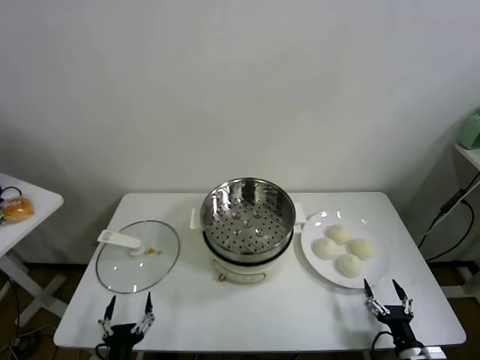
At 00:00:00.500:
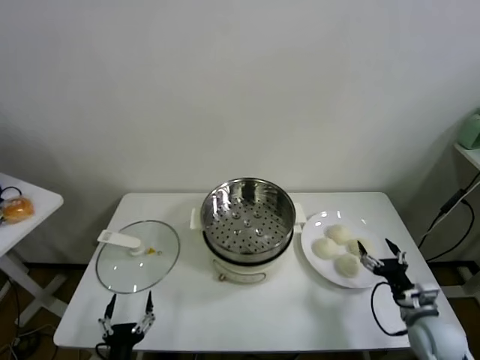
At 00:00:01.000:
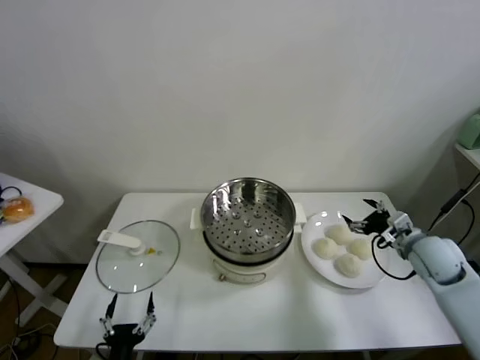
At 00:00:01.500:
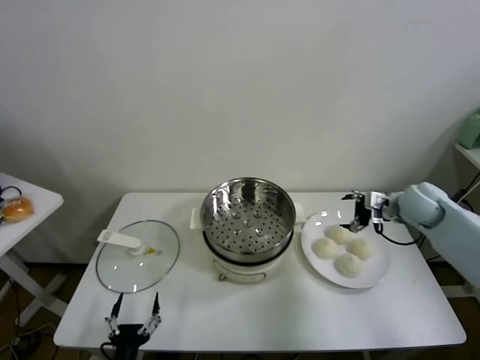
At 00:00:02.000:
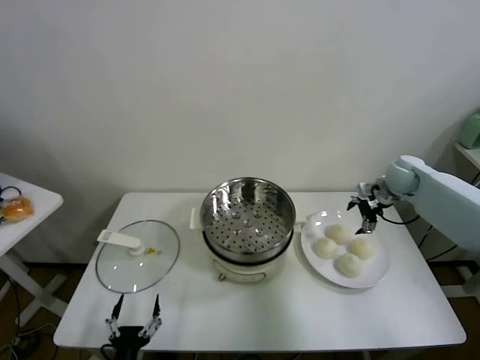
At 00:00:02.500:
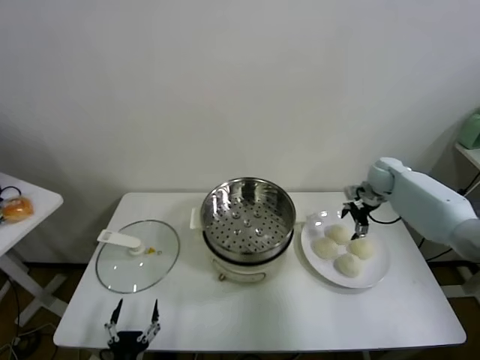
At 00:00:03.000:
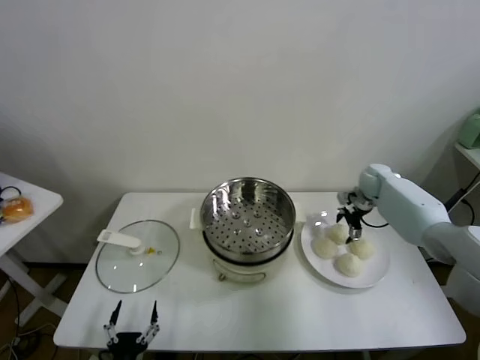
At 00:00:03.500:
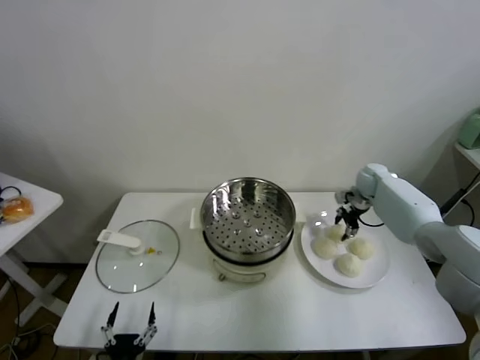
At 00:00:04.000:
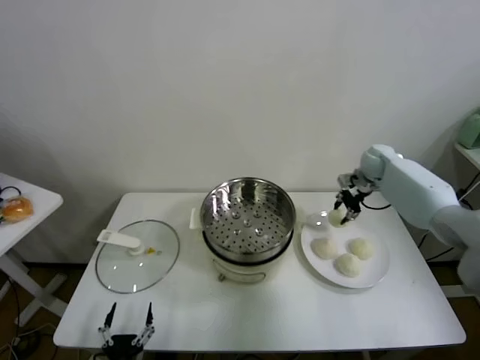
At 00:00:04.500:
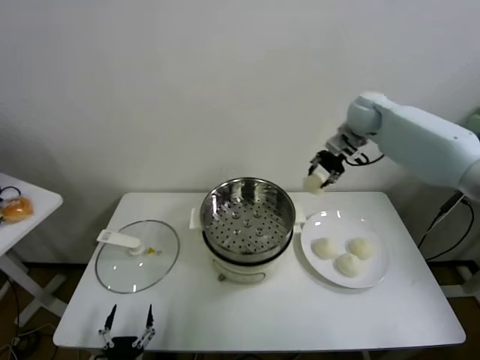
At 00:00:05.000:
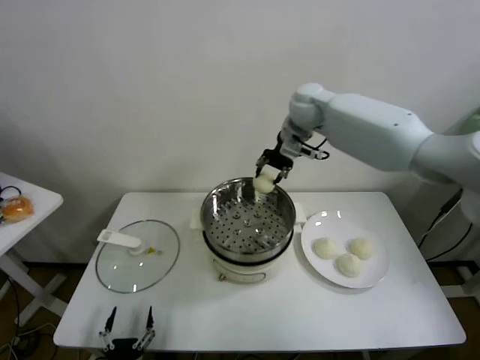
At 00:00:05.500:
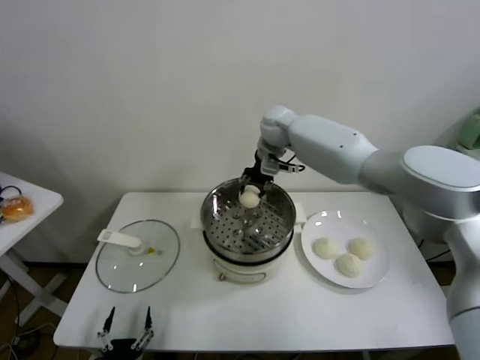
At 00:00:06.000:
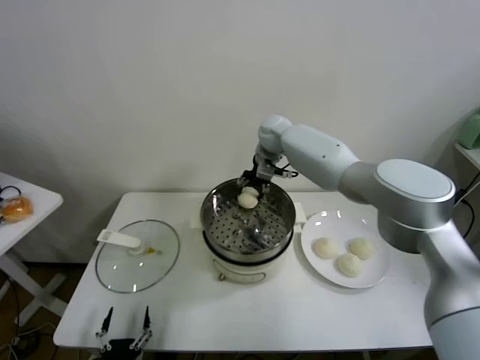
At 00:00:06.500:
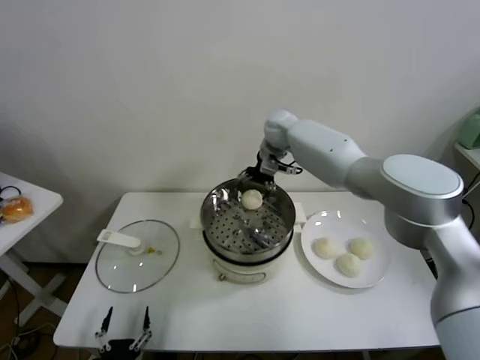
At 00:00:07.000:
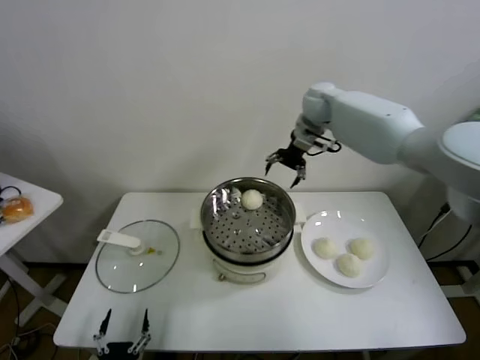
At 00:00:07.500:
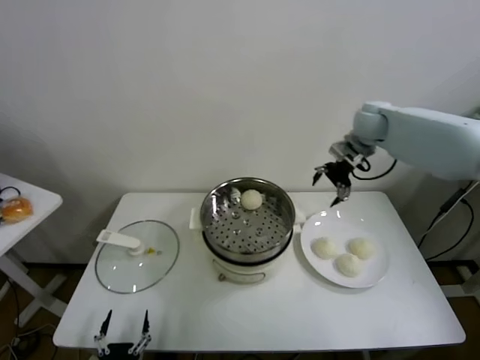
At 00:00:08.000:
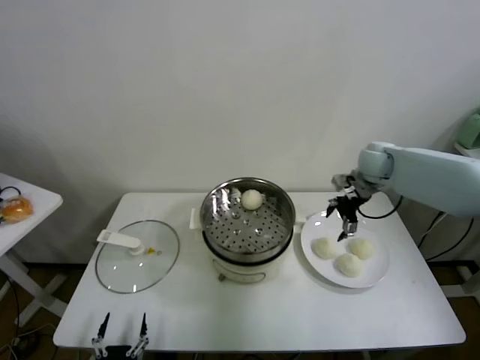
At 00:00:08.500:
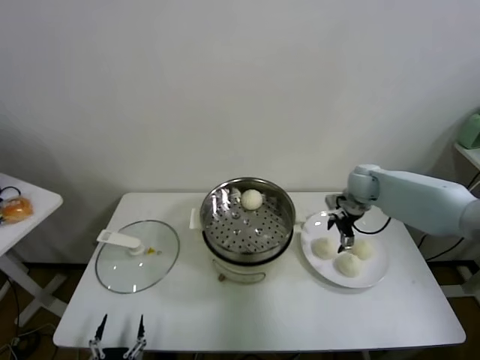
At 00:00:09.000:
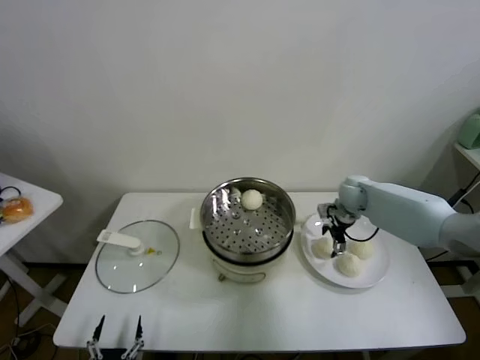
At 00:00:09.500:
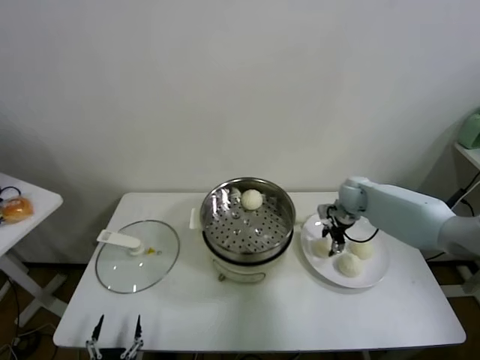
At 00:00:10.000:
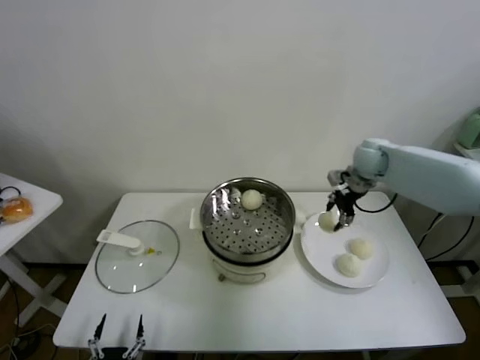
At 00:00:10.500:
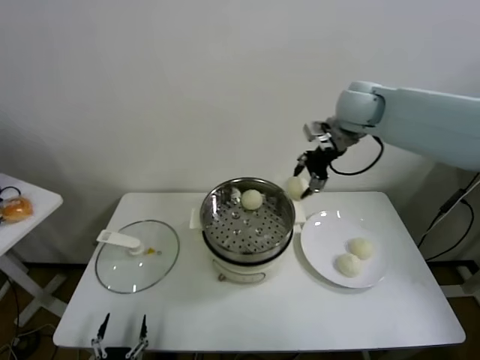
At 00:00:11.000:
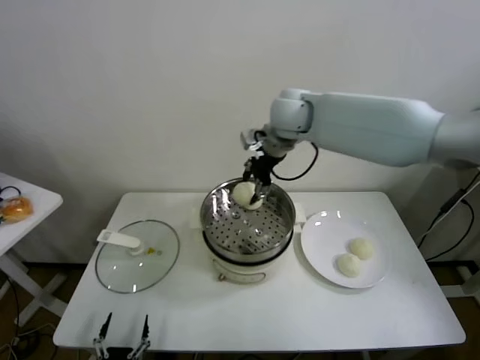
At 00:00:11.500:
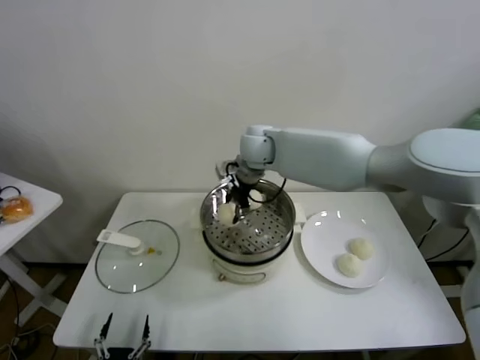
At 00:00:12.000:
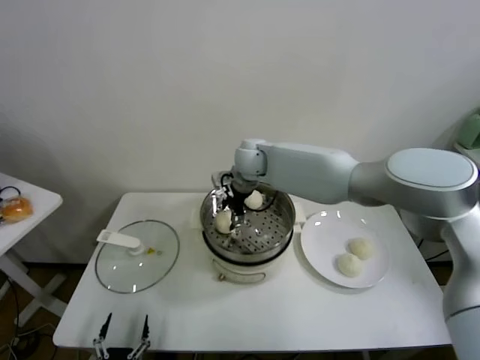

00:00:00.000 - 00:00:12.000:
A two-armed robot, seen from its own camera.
Task of the whole recording: take steamed baozi put them in steamer.
Step, 00:00:00.000 - 00:00:03.500: Grasp the baozi in the plate with right gripper.
Step, 00:00:04.000 - 00:00:06.000: Place the baozi on the steamer with right gripper.
Step, 00:00:06.500 - 00:00:09.000: Grasp the baozi in the plate with right gripper.
00:00:02.000 - 00:00:04.000: The right gripper travels forward by approximately 5 cm, moves some 5 cm downward and comes back, and closes up.
00:00:04.000 - 00:00:06.000: The right gripper moves to the left, about 30 cm.
00:00:06.000 - 00:00:08.000: The right gripper heads to the right, covering some 25 cm, and opens its fingers.
00:00:08.000 - 00:00:10.000: The right gripper travels downward and back again, some 10 cm each way, and closes its fingers.
00:00:10.000 - 00:00:12.000: The right gripper travels to the left by some 30 cm.

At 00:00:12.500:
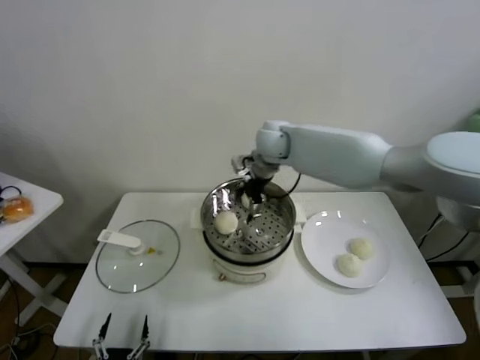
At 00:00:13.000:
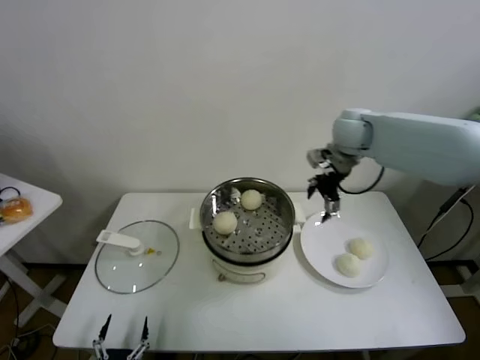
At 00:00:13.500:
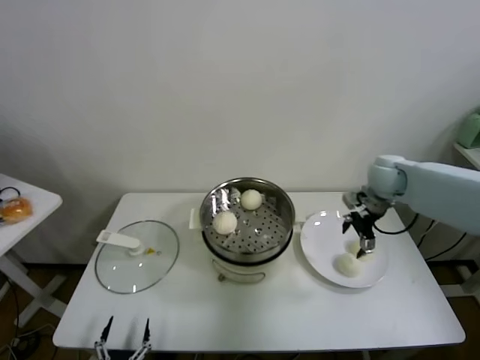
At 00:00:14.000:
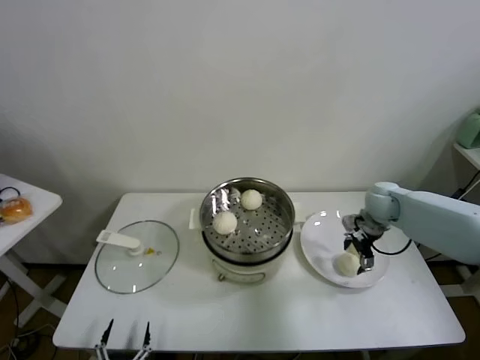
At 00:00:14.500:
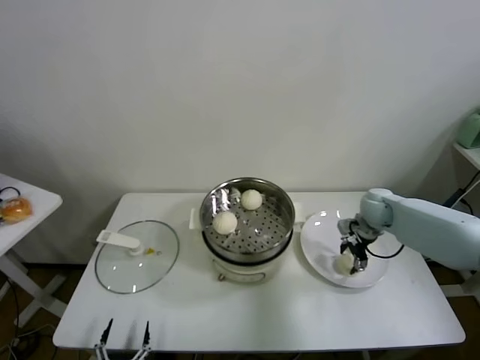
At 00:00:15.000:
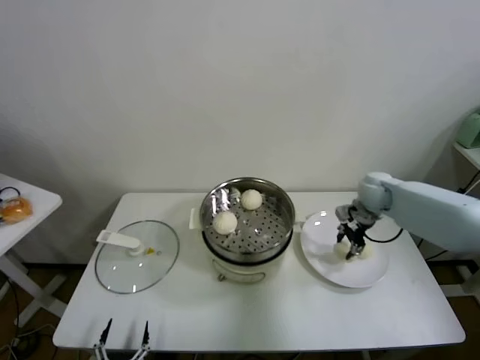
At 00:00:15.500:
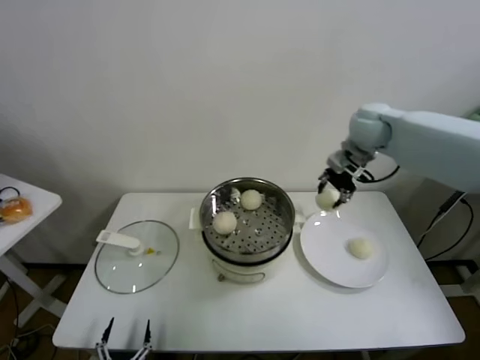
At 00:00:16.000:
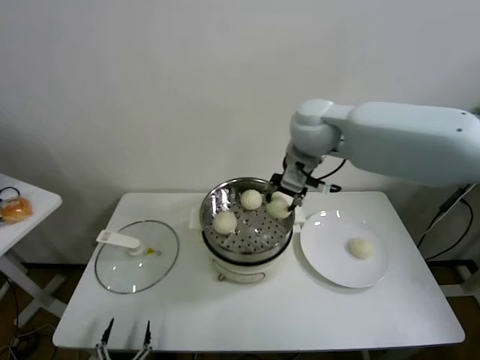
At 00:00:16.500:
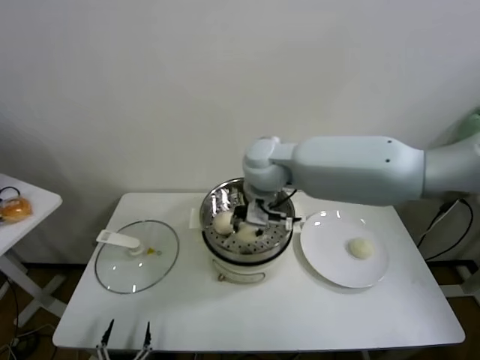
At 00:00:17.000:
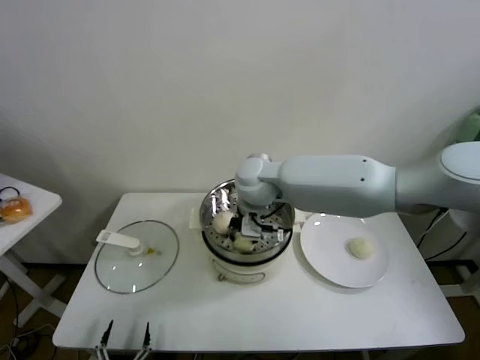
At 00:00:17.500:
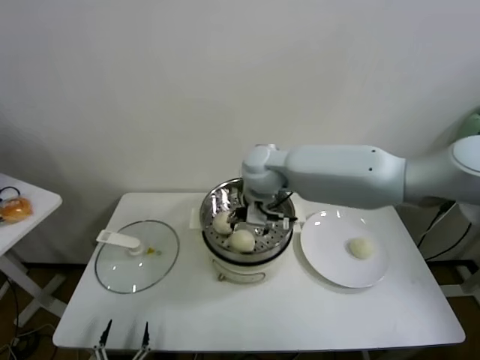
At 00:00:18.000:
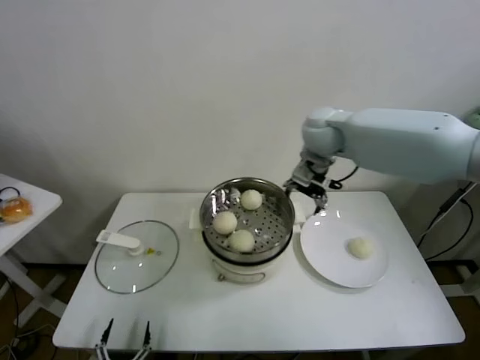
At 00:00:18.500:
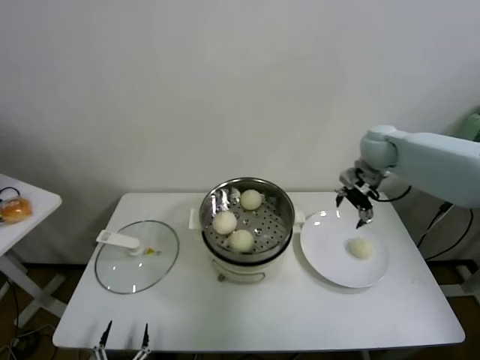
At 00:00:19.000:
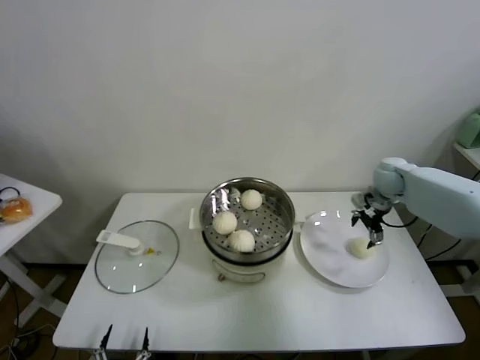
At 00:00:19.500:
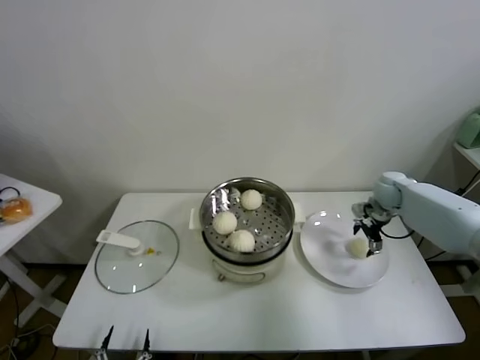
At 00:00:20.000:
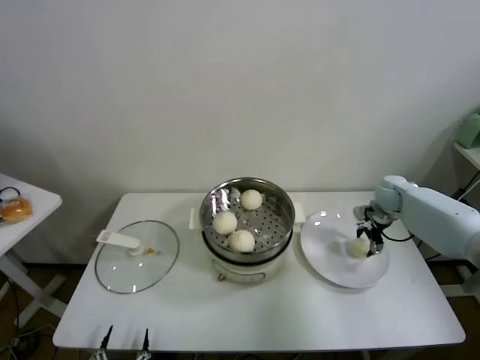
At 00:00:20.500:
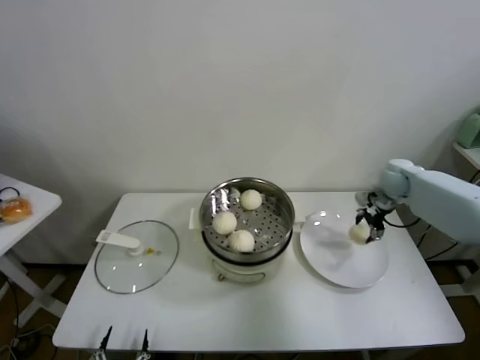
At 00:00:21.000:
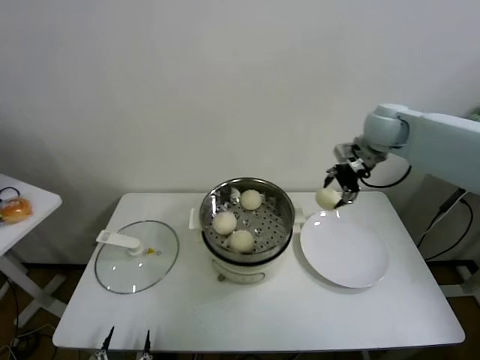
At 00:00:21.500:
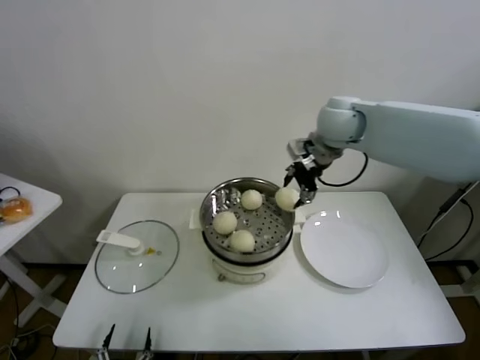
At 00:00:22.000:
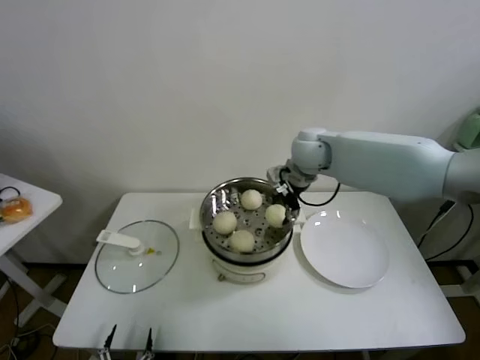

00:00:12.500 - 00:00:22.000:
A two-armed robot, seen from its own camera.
Task of the whole recording: take steamed baozi put them in steamer.
Step, 00:00:12.500 - 00:00:14.500: Grasp the baozi in the plate with right gripper.
Step, 00:00:15.000 - 00:00:17.000: Place the baozi on the steamer with right gripper.
Step, 00:00:17.500 - 00:00:20.000: Grasp the baozi in the plate with right gripper.
00:00:12.500 - 00:00:14.500: The right gripper is displaced to the right and downward by roughly 35 cm, and closes up.
00:00:14.500 - 00:00:16.500: The right gripper goes roughly 35 cm to the left and upward, and closes.
00:00:16.500 - 00:00:18.000: The right gripper goes roughly 15 cm to the right and forward, and opens.
00:00:18.000 - 00:00:20.000: The right gripper travels to the right and downward by some 35 cm, and closes its fingers.
00:00:20.000 - 00:00:22.000: The right gripper goes roughly 30 cm to the left and upward.

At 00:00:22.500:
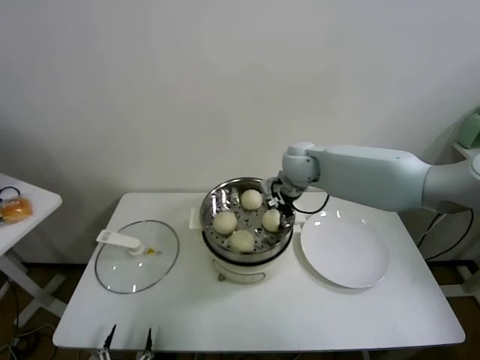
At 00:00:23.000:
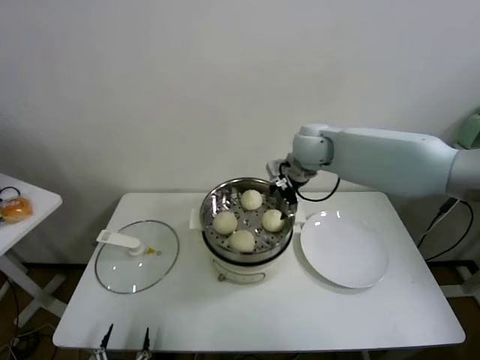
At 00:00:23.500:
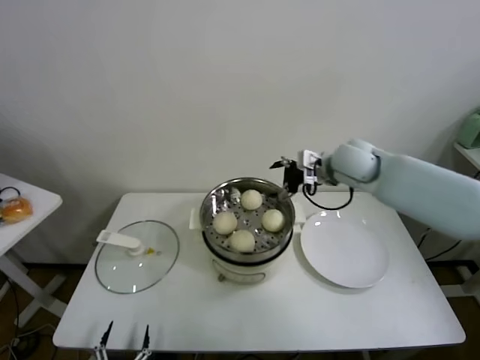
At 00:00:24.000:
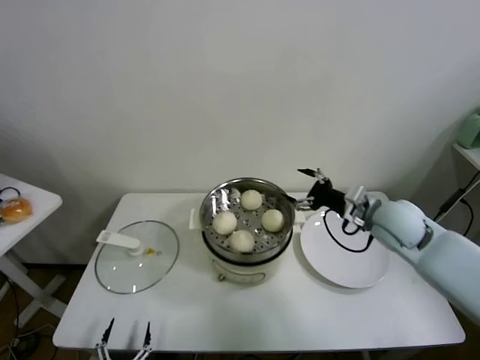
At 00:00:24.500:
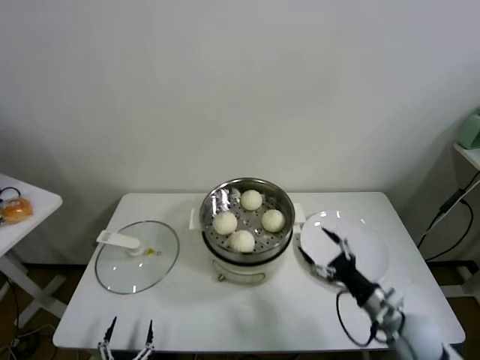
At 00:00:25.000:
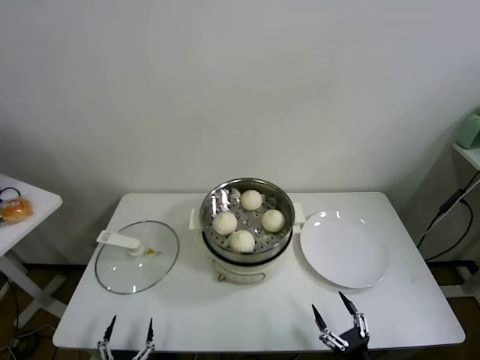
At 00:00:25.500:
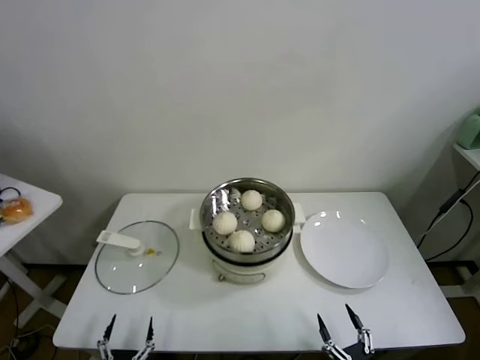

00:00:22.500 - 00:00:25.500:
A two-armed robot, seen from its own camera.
Task of the whole recording: take steamed baozi put them in steamer.
00:00:22.500 - 00:00:24.000: The right gripper shifts approximately 20 cm to the right and backward, and opens its fingers.
00:00:24.000 - 00:00:25.500: The right gripper goes approximately 50 cm backward and downward.
